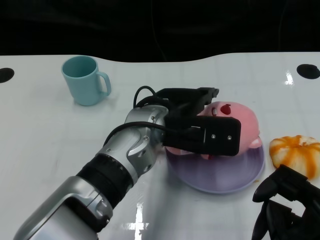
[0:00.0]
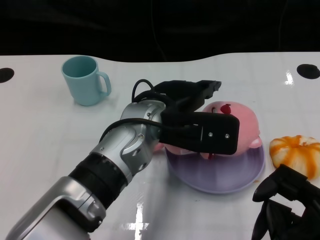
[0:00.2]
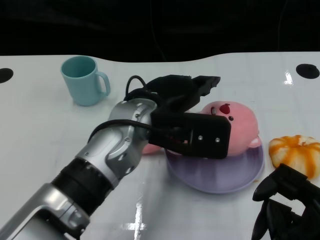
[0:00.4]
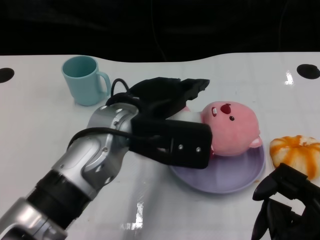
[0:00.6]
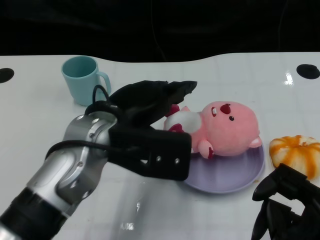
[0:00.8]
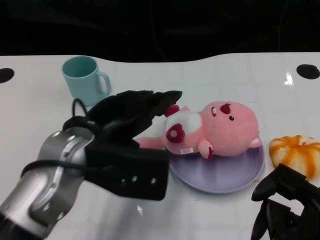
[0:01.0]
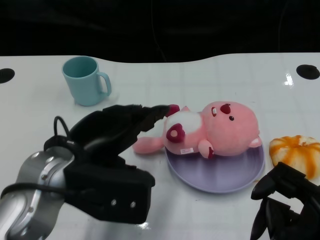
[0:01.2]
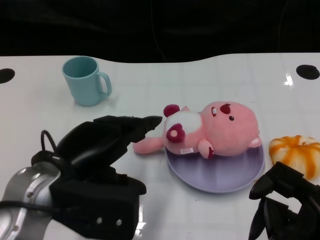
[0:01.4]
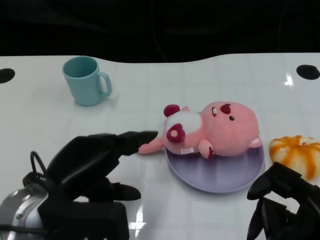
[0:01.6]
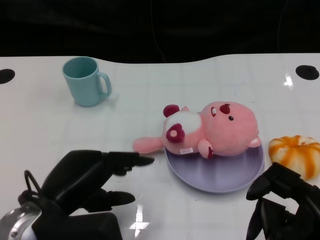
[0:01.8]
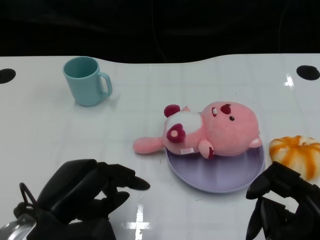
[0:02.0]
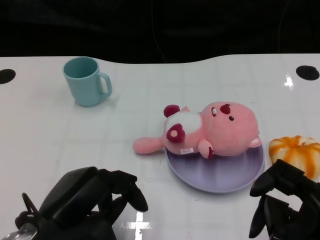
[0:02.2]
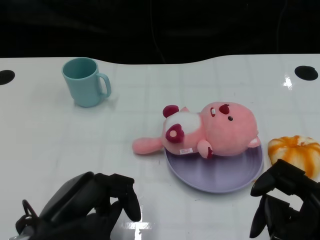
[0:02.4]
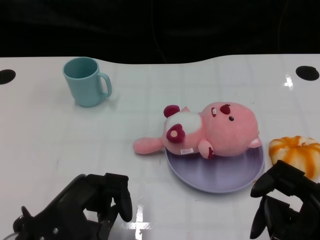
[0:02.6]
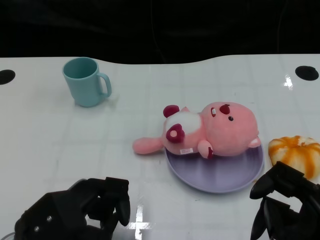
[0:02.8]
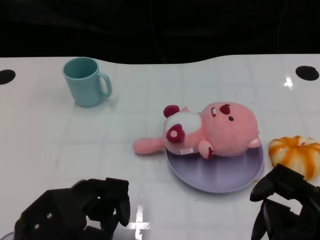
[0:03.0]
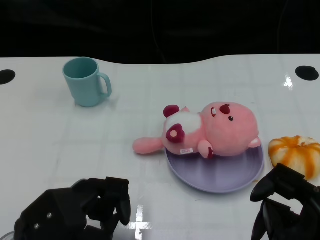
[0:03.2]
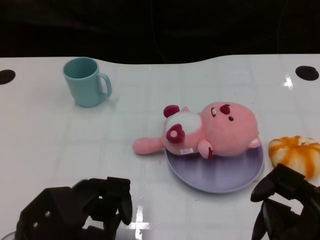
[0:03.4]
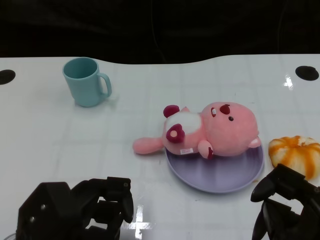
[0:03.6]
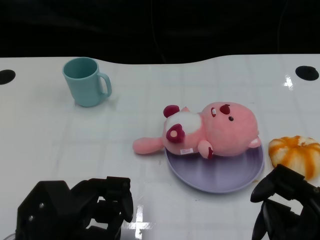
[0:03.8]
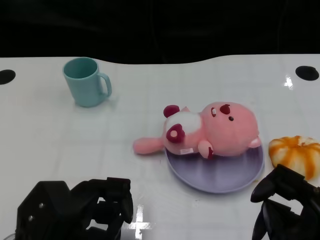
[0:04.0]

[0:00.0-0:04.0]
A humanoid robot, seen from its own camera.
Task of the whole recording: Pick up the doll on one side of the plate and place it into the plate.
0:00.0 to 0:01.4: The left hand moves to the left and backward, some 15 cm.
0:01.4 to 0:02.6: The left hand is displaced downward by some 5 cm.
0:02.6 to 0:04.0: The hands make only small movements.

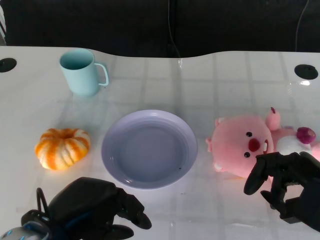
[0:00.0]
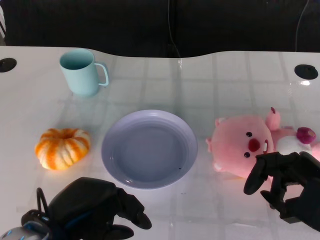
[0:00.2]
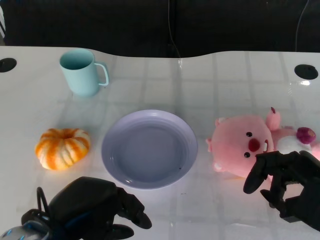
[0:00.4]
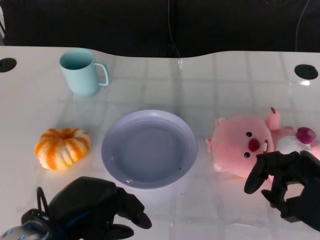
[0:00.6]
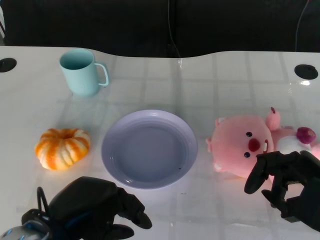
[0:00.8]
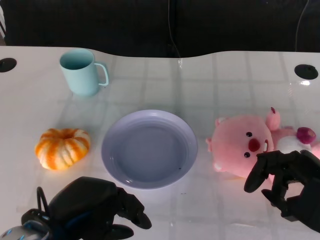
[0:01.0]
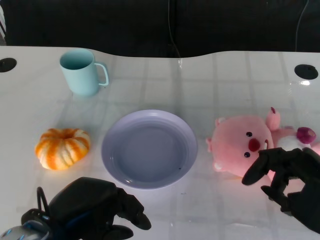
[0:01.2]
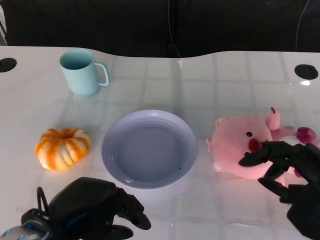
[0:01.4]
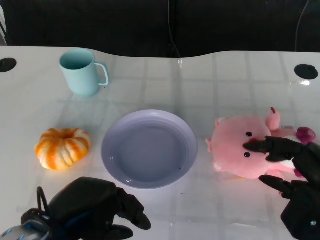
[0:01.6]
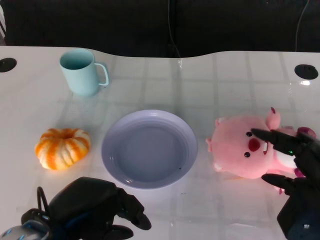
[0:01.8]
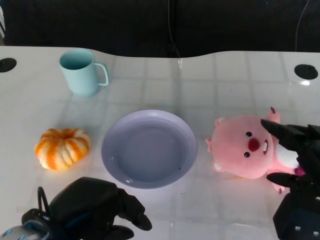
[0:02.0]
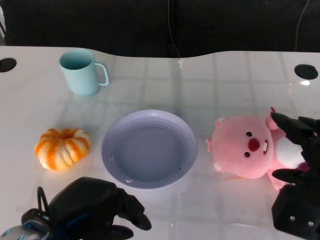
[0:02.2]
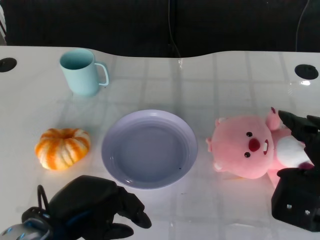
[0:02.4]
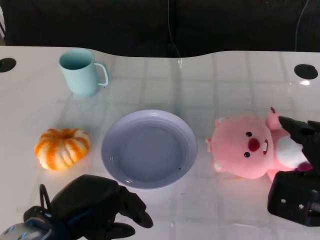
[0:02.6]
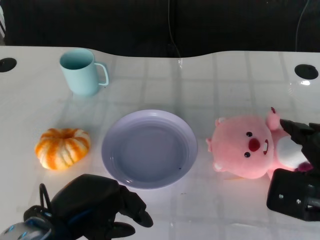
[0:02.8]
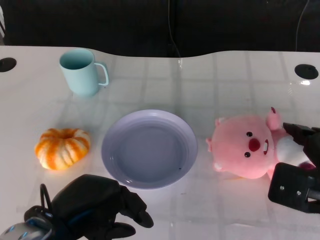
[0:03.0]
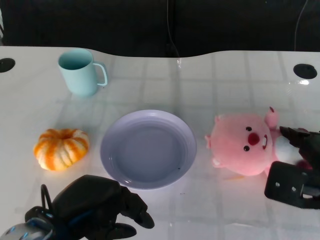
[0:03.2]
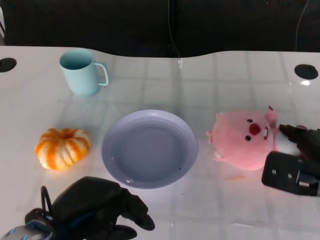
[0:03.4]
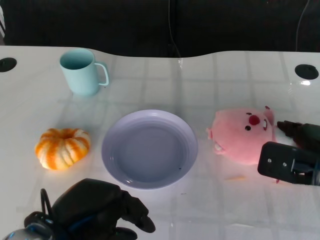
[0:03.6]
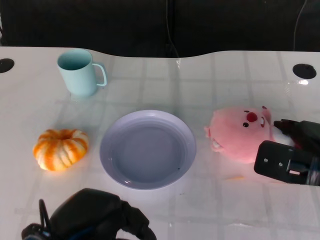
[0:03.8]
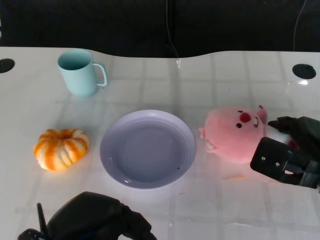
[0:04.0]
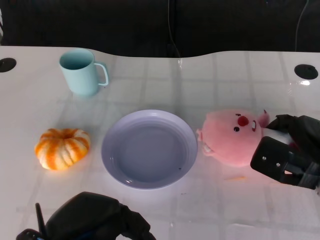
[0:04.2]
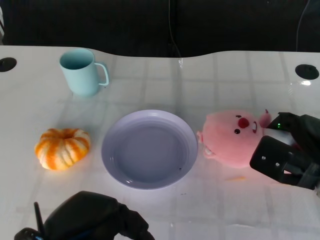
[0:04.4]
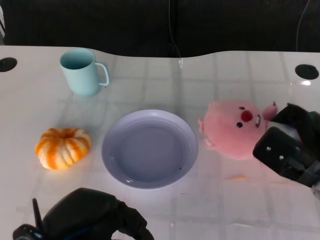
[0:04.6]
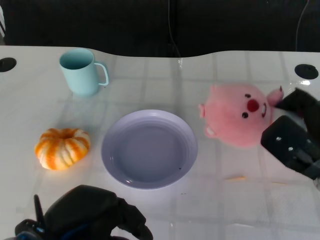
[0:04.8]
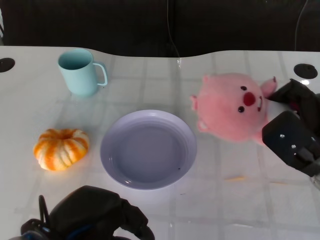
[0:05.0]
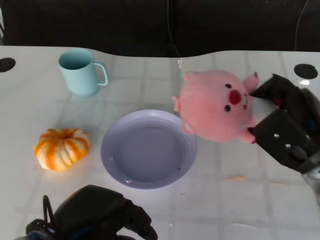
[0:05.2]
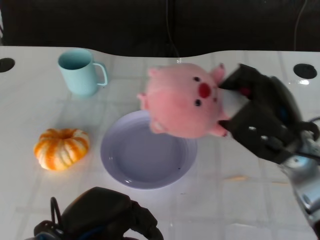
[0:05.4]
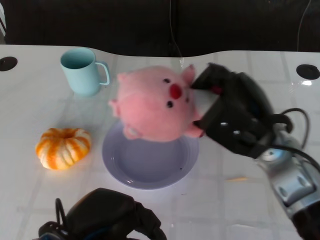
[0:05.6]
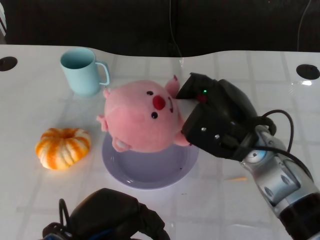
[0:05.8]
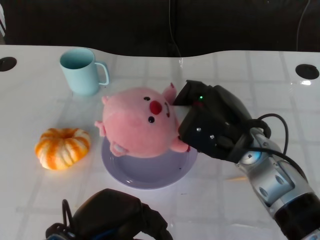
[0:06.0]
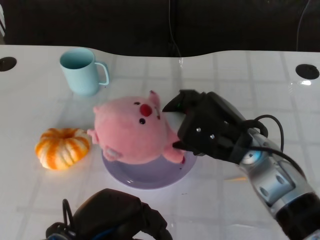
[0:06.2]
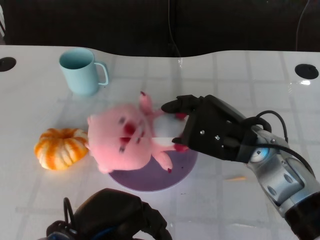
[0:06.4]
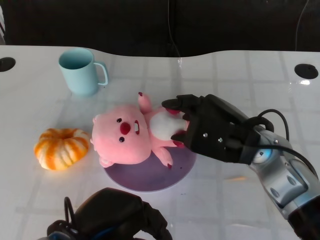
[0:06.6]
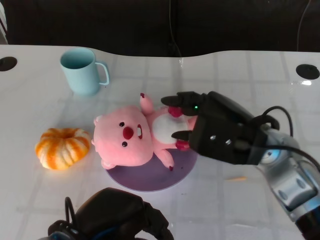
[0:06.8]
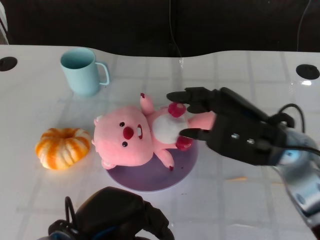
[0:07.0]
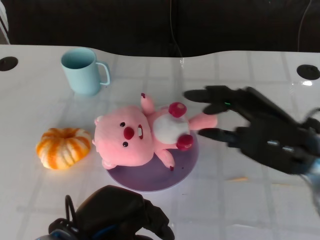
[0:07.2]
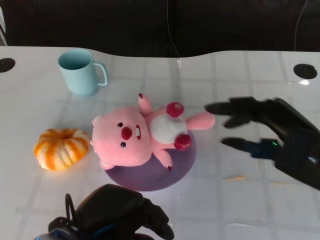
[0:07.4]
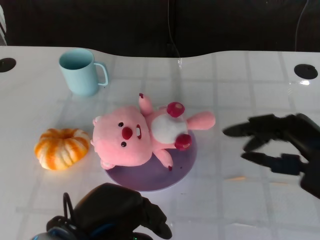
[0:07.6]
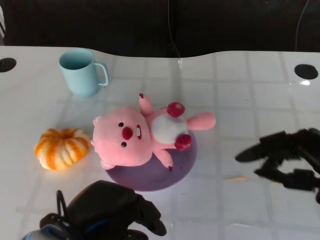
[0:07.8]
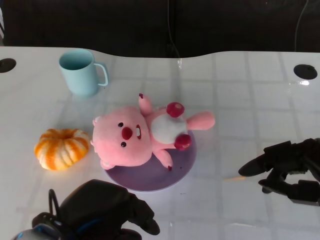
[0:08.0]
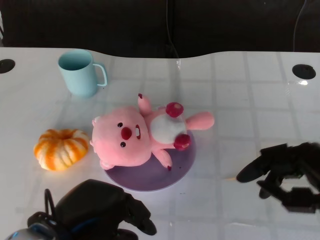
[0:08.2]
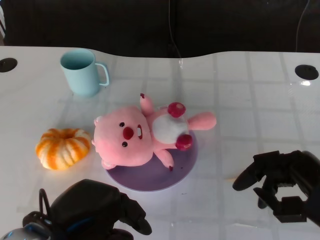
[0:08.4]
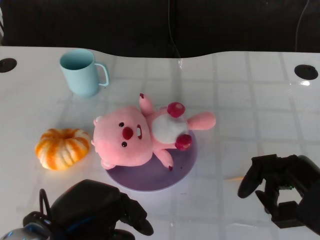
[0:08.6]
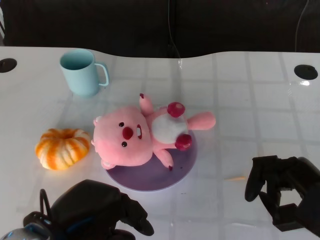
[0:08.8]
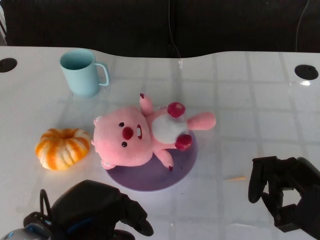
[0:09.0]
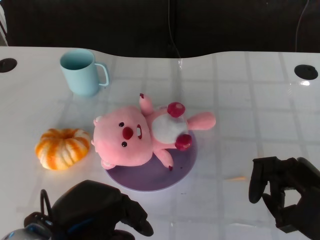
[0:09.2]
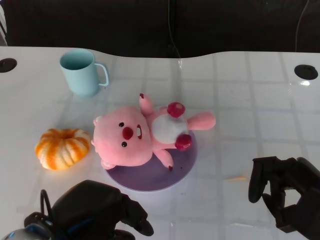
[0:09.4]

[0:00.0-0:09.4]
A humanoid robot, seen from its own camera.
Task of the whole recording: Pick up the doll on the other side of the plate and place it into the plate.
Step, 0:01.2 to 0:05.2: Grasp the pink doll with the right gripper.
Step, 0:05.4 to 0:07.4: Place the pink doll into the plate with the right gripper.
0:01.6 to 0:03.2: The right hand shifts some 5 cm forward.
0:04.8 to 0:06.2: The right hand goes approximately 10 cm to the left.
0:06.2 to 0:07.8: The right hand travels to the right and backward by some 15 cm.
0:07.8 to 0:09.4: The hands make only small movements.
